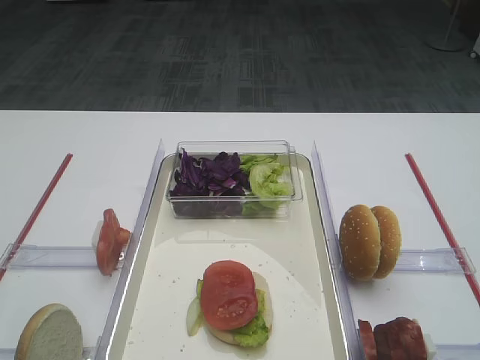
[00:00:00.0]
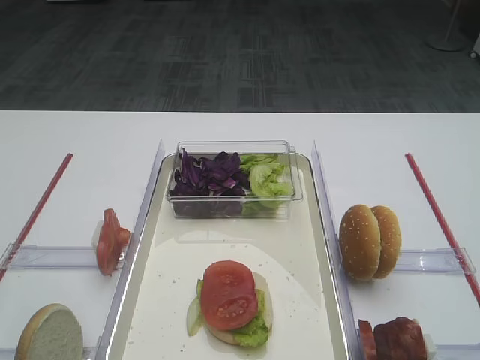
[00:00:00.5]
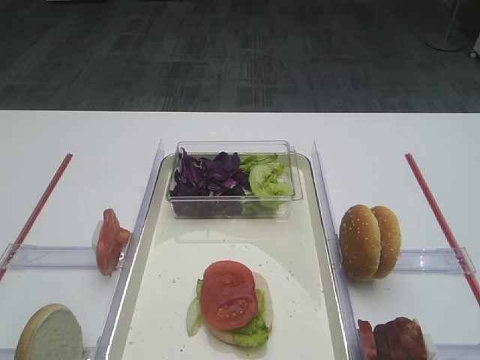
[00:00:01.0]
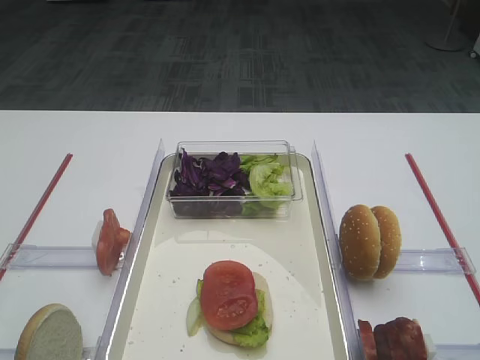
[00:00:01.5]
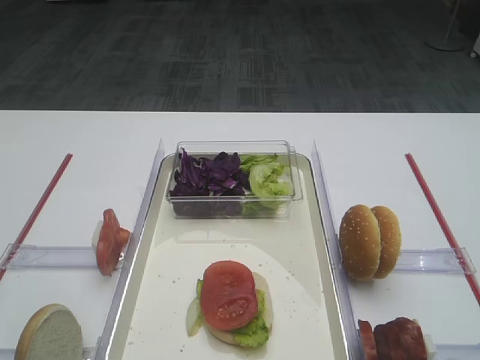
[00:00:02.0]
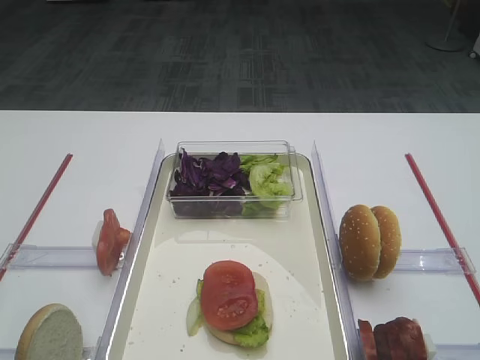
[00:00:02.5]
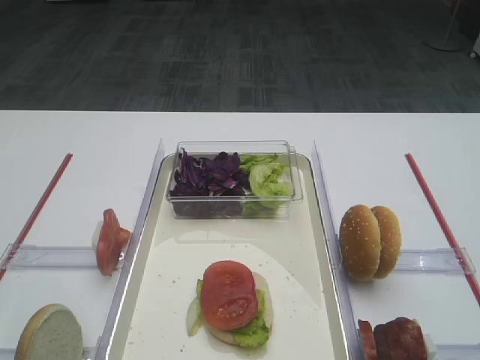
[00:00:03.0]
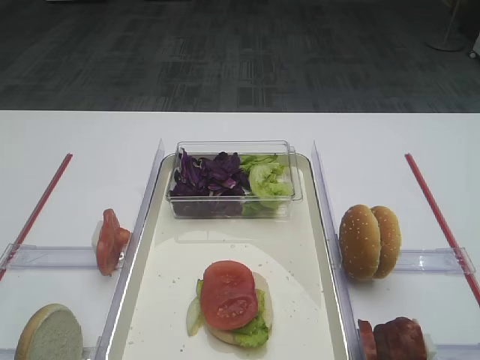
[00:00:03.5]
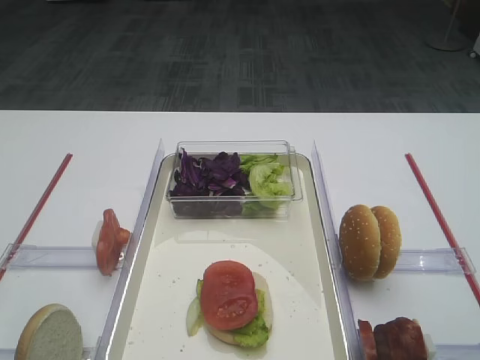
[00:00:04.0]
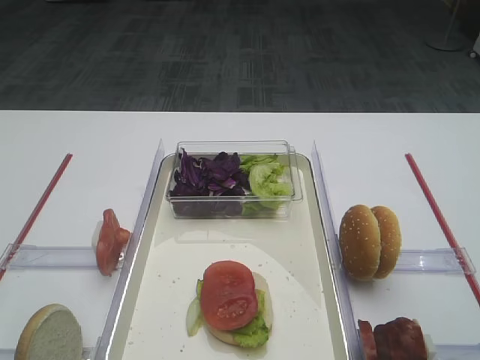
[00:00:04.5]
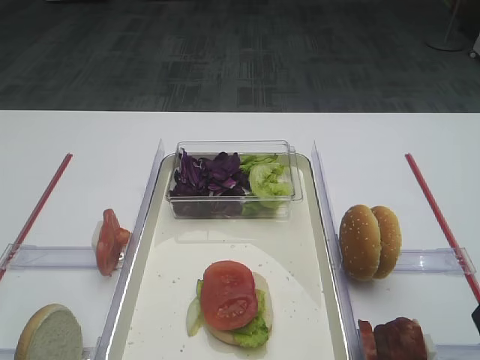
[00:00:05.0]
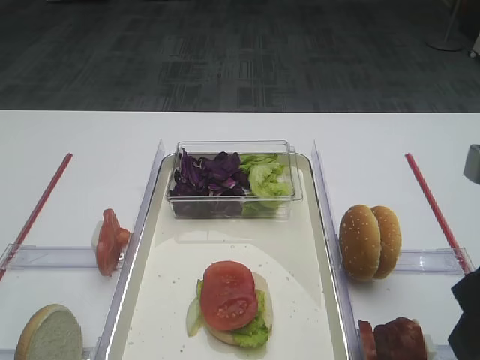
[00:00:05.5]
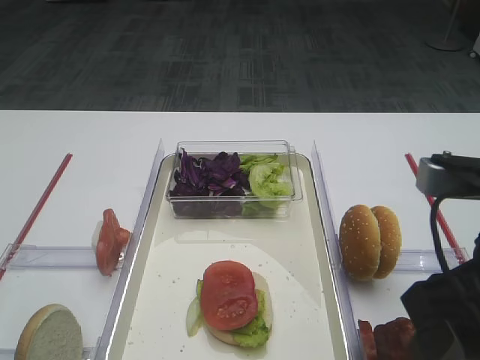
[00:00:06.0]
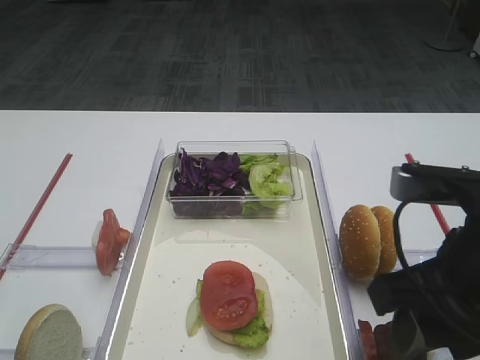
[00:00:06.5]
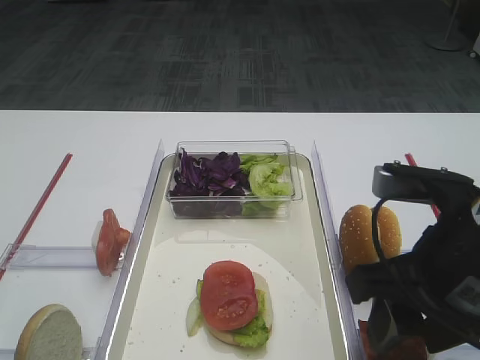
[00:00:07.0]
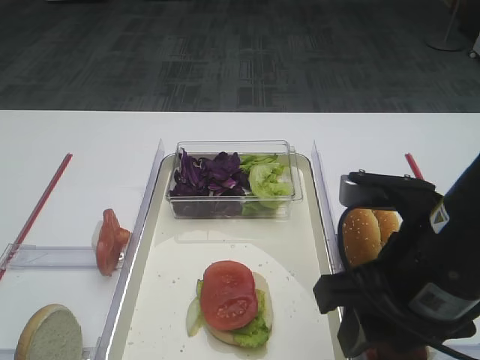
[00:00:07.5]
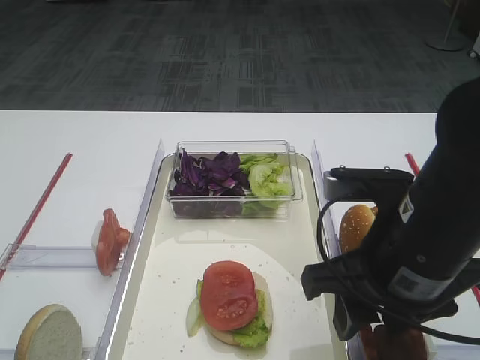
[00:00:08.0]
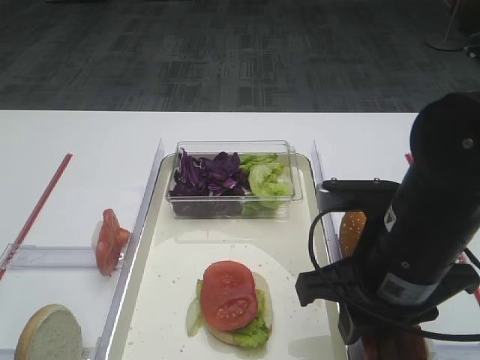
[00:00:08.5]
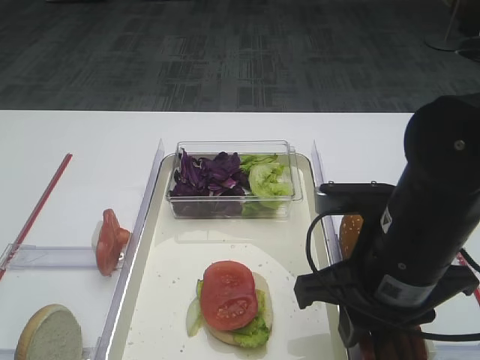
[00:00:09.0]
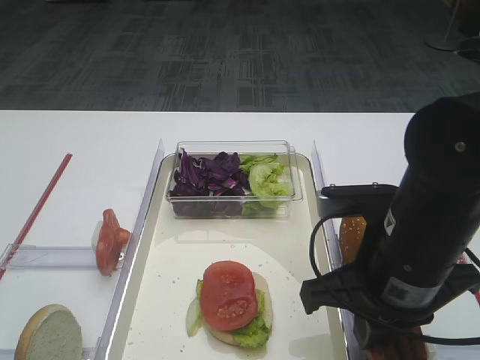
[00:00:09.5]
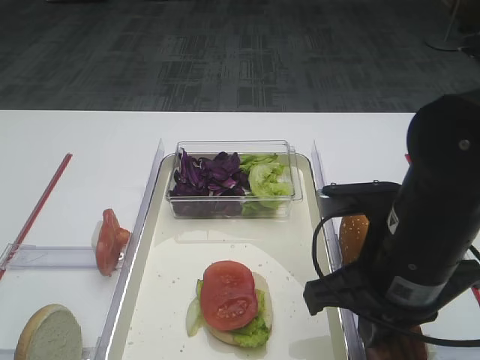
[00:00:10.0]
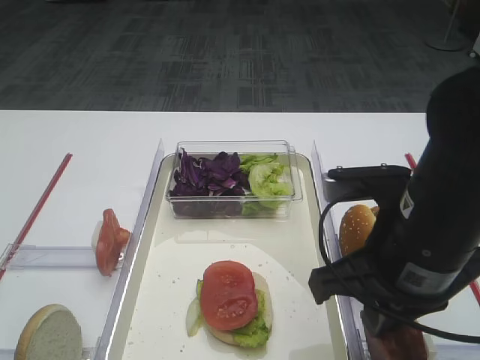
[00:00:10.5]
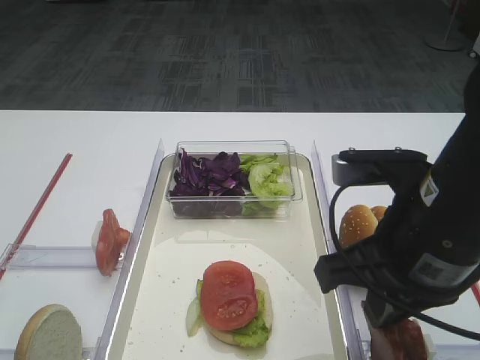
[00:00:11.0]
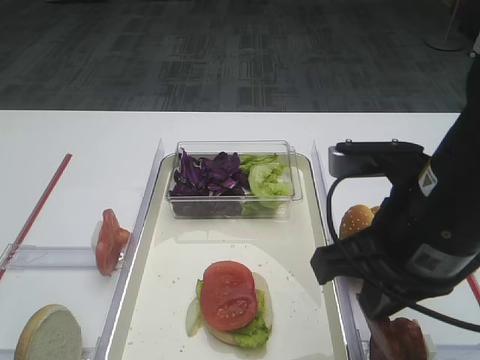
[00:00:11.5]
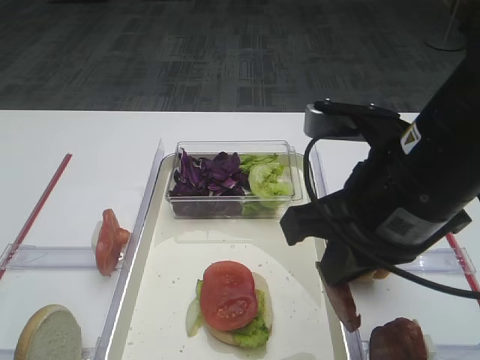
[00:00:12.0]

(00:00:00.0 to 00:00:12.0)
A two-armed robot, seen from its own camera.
Step, 00:00:00.0 - 00:00:11.5: Pick up the cutlet with the right gripper.
00:00:04.0 - 00:00:06.0: The right gripper shifts approximately 5 cm to the left.
00:00:06.0 - 00:00:08.0: The right gripper moves forward and to the left, about 5 cm.
00:00:08.0 - 00:00:10.0: The right gripper closes up.
00:00:10.0 - 00:00:12.0: The right gripper shifts some 5 cm upward.

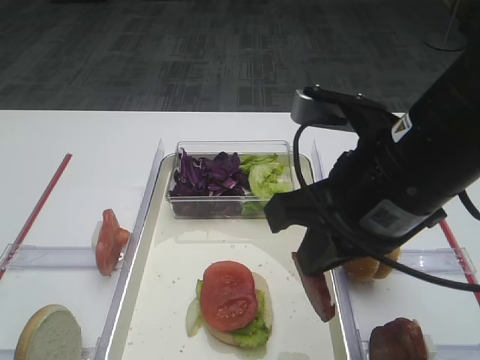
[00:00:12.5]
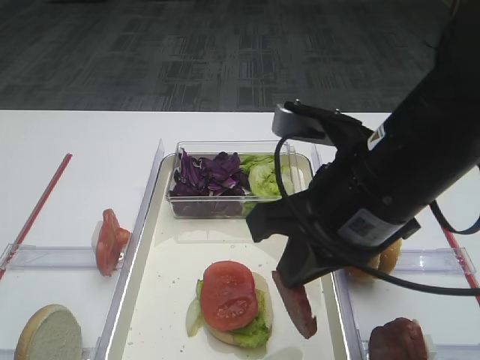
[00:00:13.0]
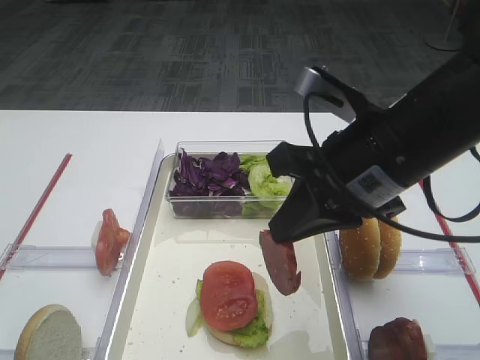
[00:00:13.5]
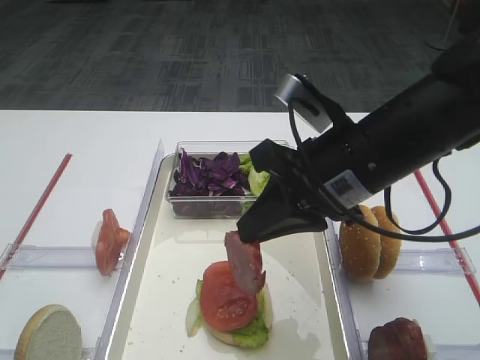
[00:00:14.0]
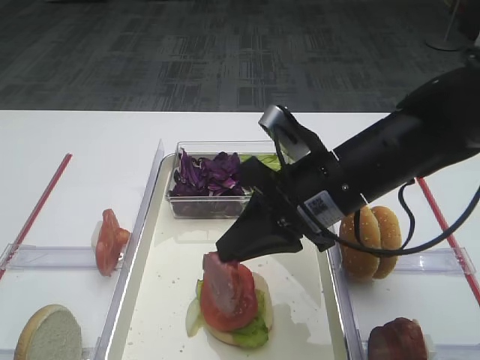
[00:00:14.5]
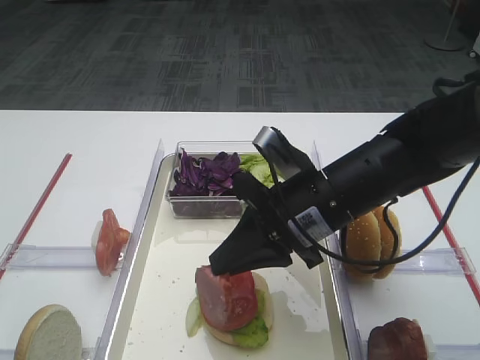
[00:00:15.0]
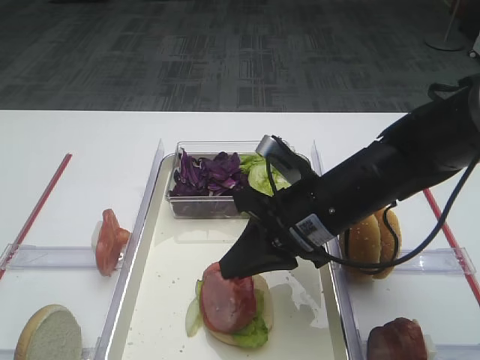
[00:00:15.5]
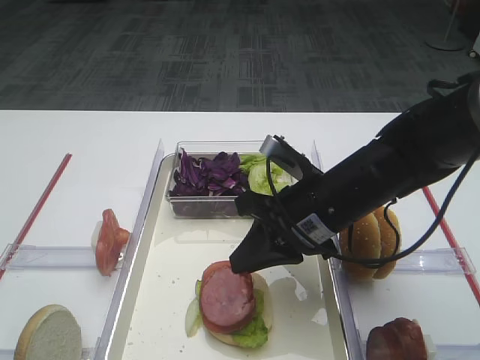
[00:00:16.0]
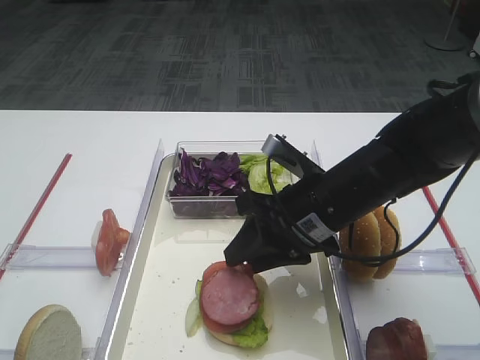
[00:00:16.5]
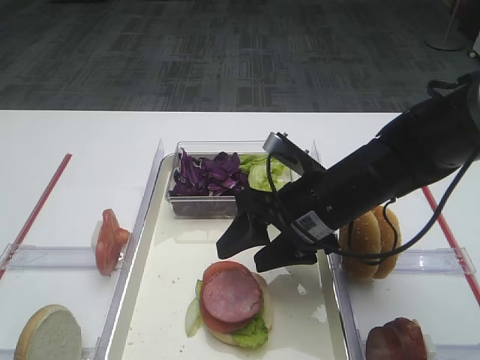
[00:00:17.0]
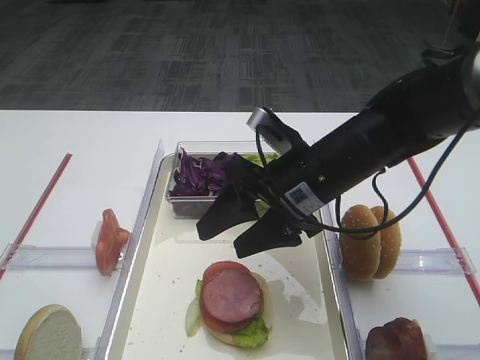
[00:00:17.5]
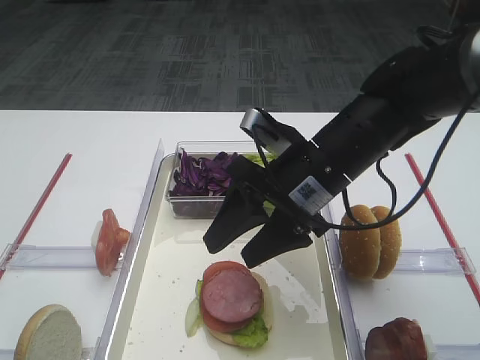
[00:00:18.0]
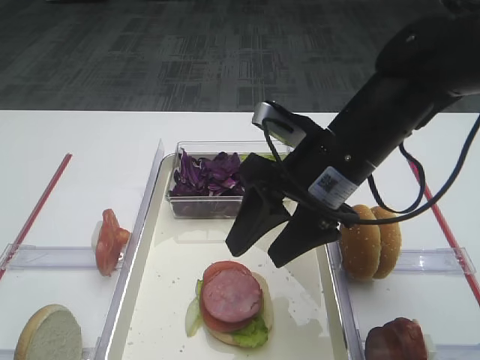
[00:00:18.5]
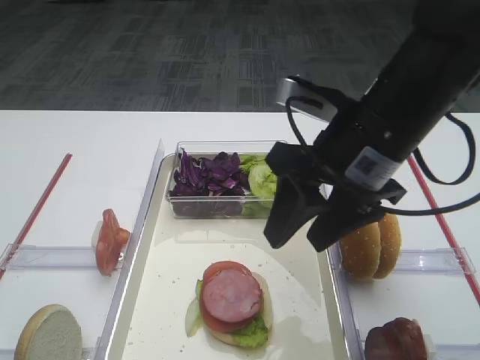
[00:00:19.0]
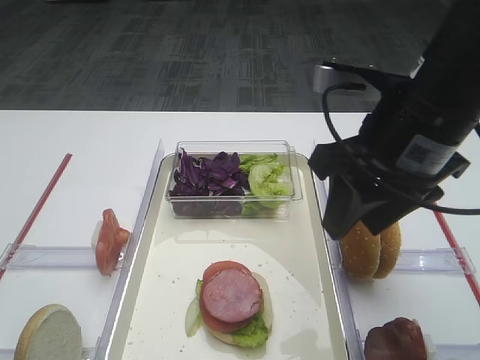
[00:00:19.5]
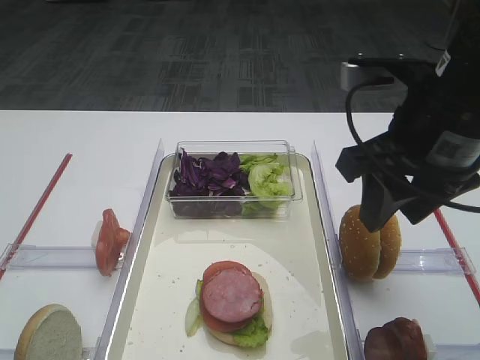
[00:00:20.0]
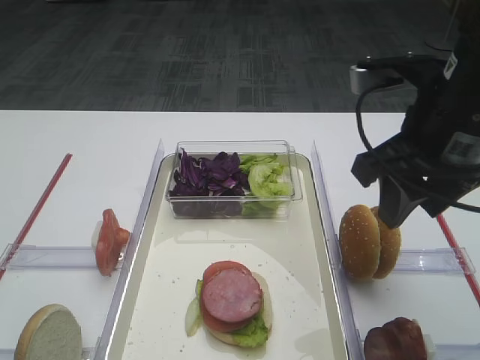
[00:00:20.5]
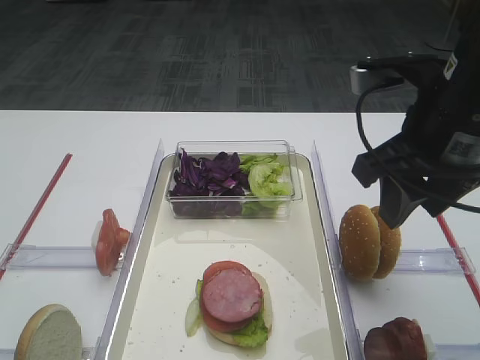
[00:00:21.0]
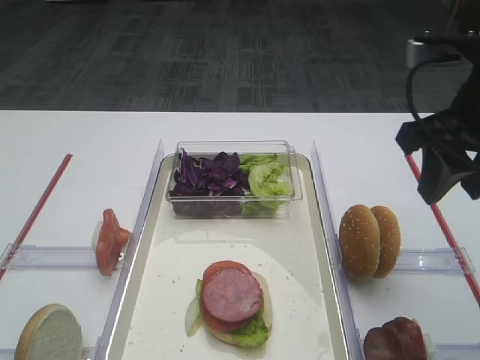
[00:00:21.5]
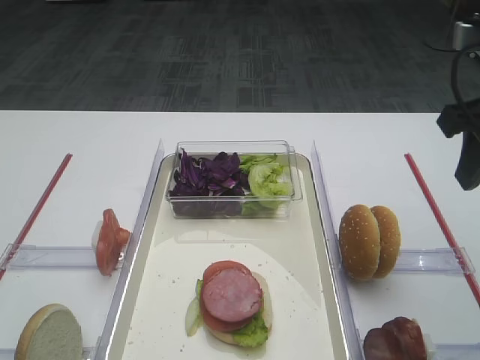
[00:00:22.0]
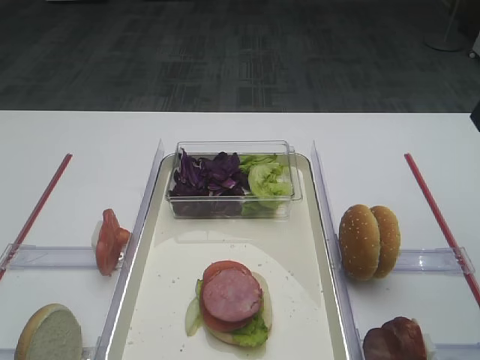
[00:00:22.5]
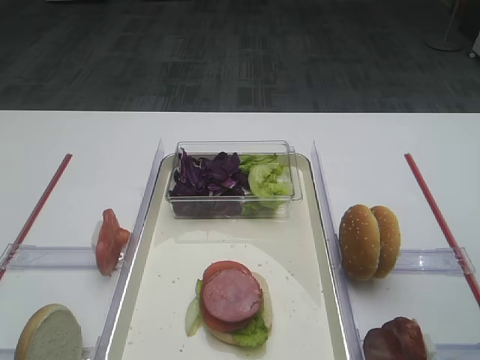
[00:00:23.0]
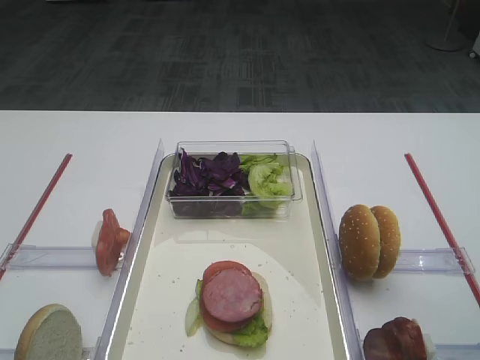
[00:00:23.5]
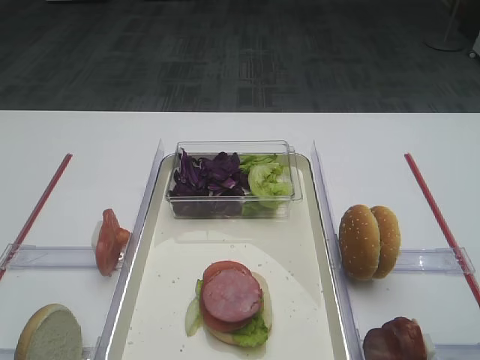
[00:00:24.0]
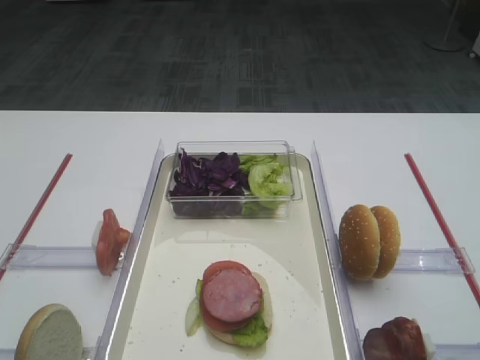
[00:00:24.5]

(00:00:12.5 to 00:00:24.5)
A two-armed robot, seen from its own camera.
Step, 00:00:12.5 - 00:00:18.5: Place the cutlet on the tomato slice with the right gripper.
00:00:12.5 - 00:00:14.5: The right gripper goes approximately 10 cm forward and downward.
00:00:14.5 - 00:00:16.5: The right gripper ends up about 5 cm from where it was, and opens up.
00:00:16.5 - 00:00:18.5: The right gripper heads upward, covering some 5 cm.
00:00:18.5 - 00:00:20.5: The right gripper goes about 10 cm to the right and upward.
00:00:20.5 - 00:00:22.5: The right gripper heads to the right, covering about 10 cm.

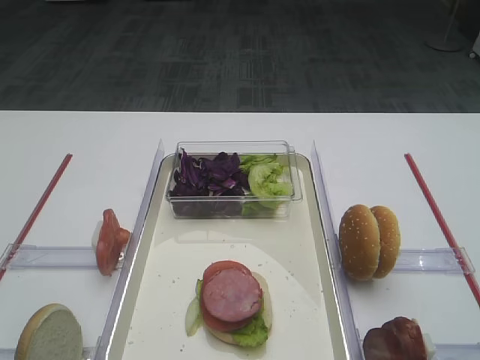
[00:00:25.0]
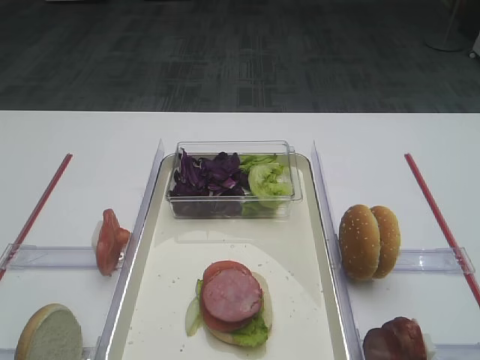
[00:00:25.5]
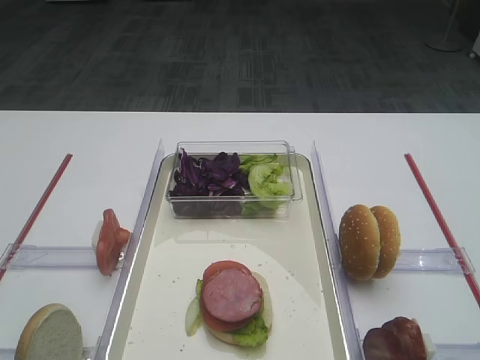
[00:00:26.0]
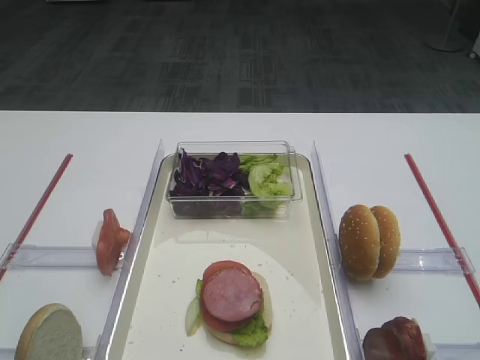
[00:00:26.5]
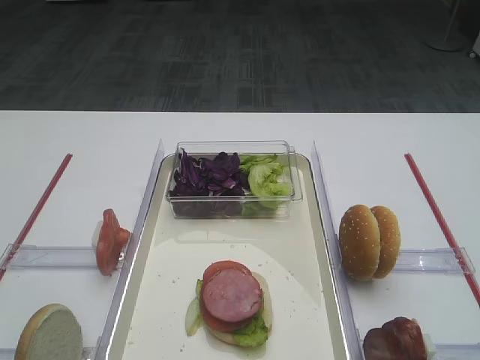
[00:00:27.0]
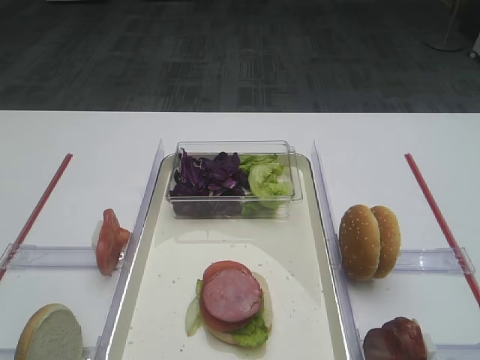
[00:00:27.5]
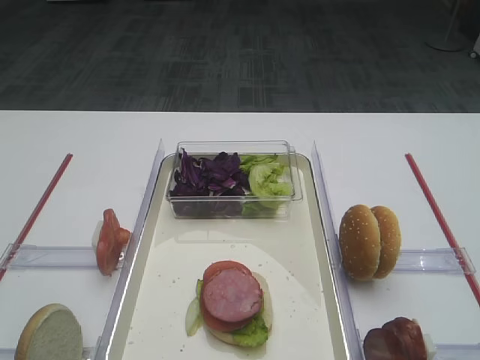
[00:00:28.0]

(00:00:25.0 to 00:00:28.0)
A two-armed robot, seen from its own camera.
00:00:26.5 - 00:00:28.0: Both grippers stay put.
